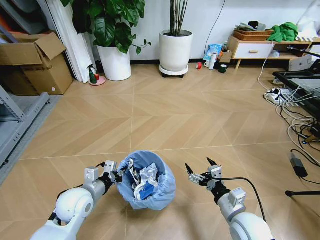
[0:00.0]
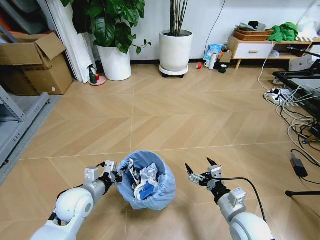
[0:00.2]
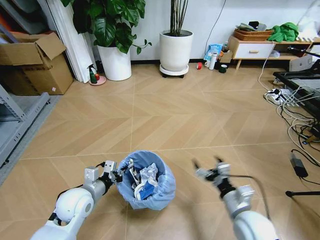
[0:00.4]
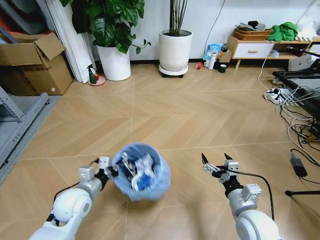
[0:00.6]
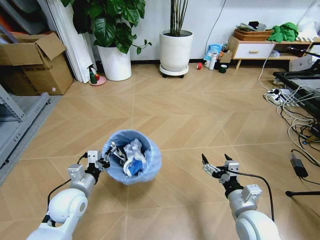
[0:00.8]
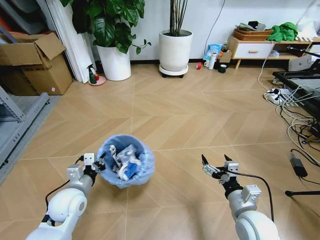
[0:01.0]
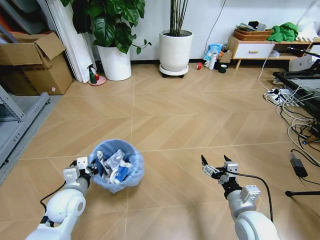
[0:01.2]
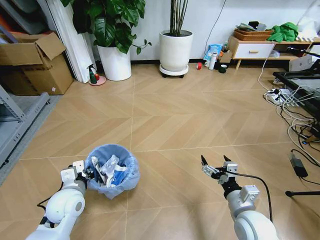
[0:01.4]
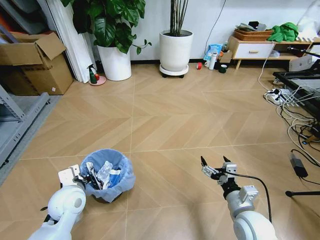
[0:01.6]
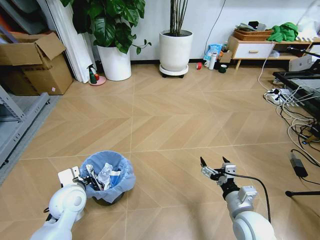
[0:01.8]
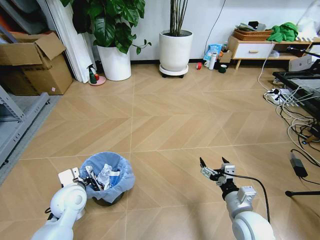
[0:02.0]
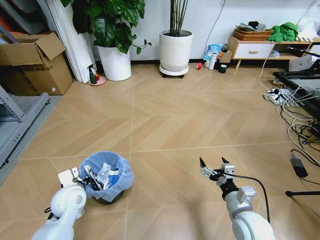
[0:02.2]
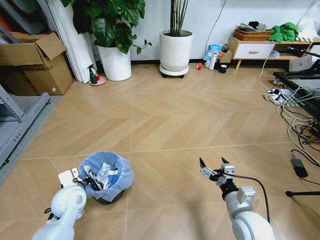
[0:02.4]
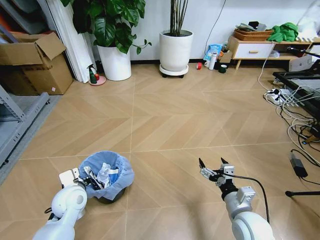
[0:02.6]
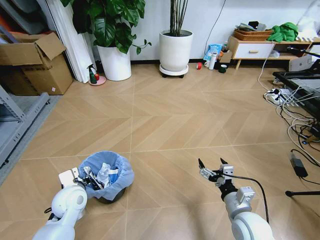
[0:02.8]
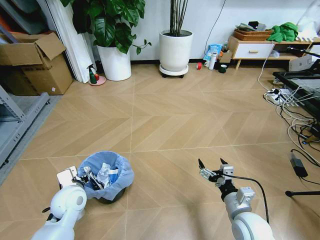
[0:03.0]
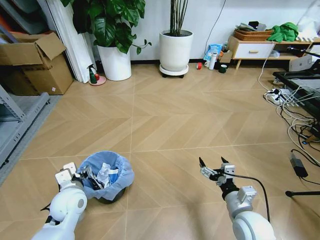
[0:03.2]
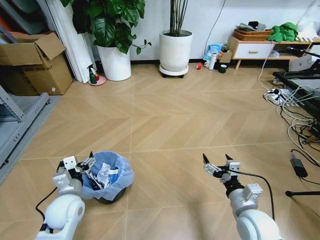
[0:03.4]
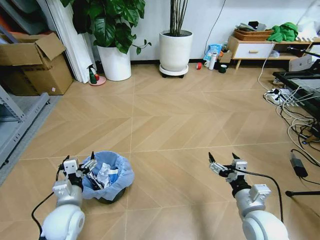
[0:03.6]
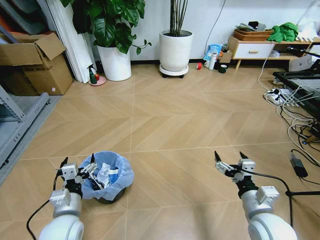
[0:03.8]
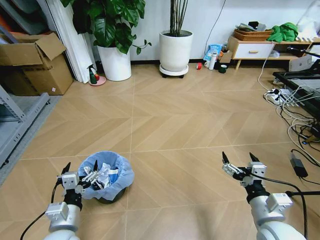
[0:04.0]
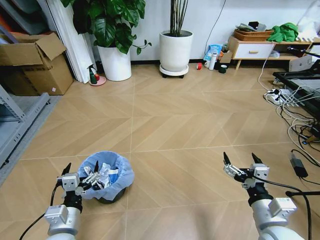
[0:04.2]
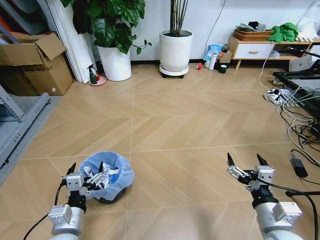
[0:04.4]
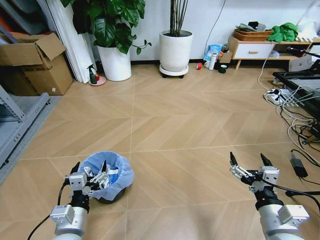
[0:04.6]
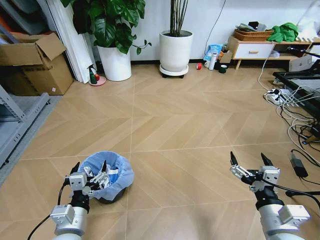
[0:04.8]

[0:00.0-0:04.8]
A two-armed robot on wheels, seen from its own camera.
Task of the whole recording: Pick up the trash bin and place the garbage on the floor into it.
0:01.6 to 0:03.2: The left gripper opens its fingers.
0:03.2 to 0:04.8: The right gripper moves upward and backward, about 10 cm. The left gripper travels backward by approximately 15 cm.
